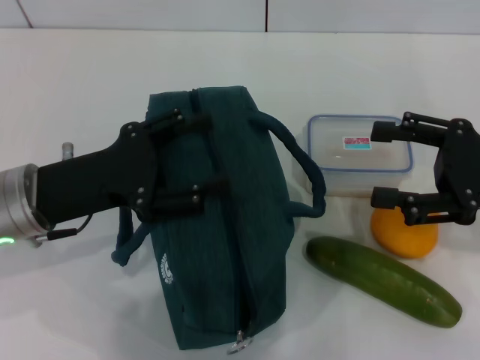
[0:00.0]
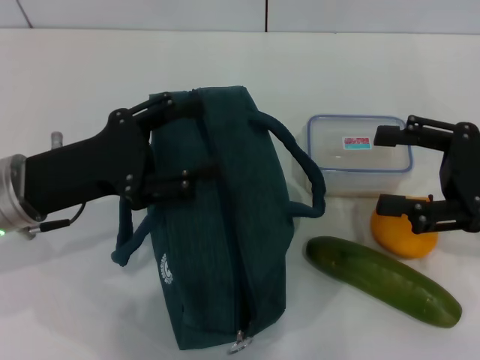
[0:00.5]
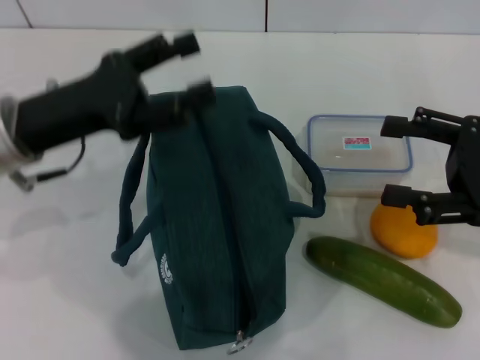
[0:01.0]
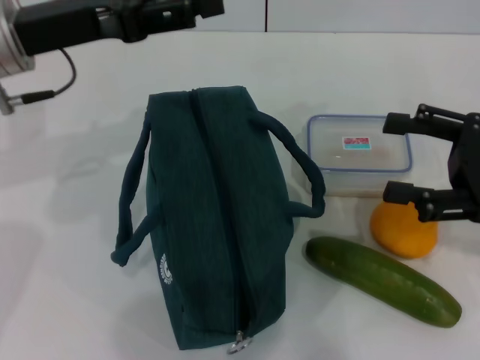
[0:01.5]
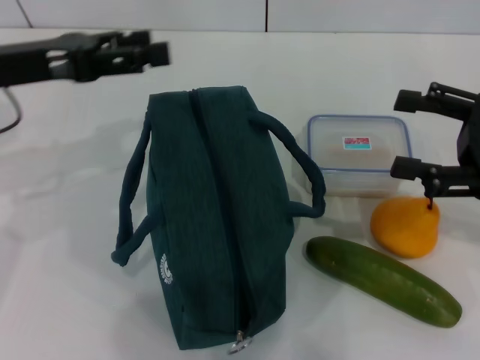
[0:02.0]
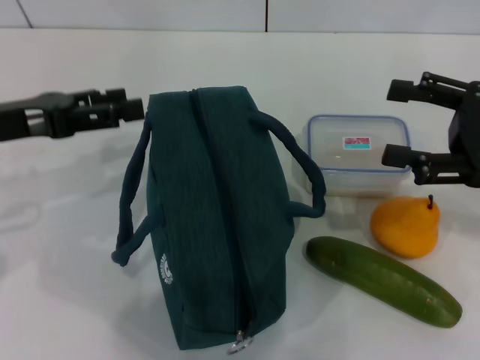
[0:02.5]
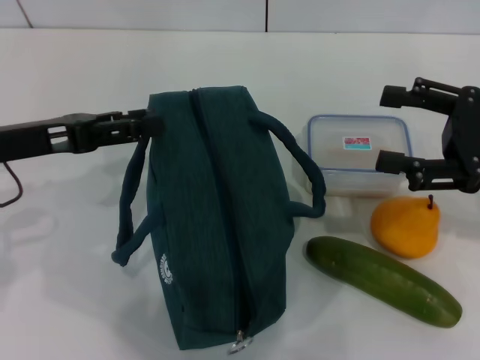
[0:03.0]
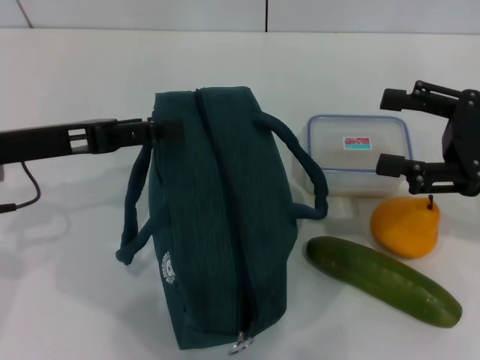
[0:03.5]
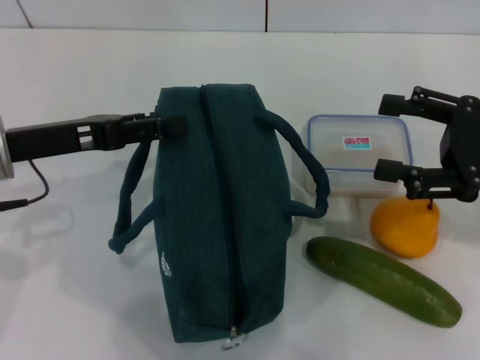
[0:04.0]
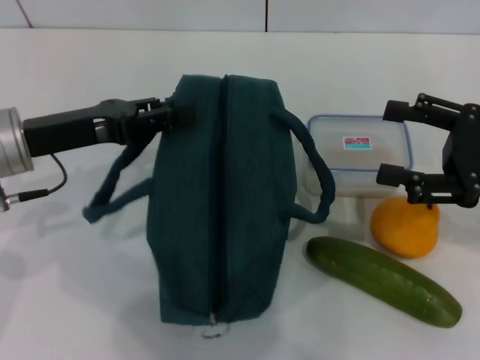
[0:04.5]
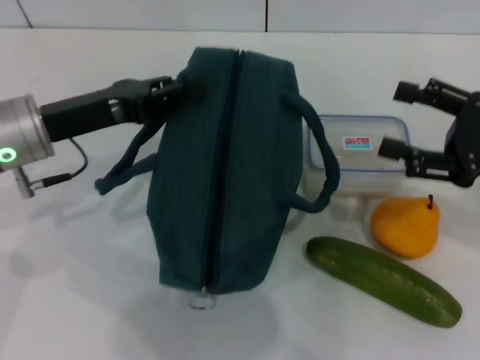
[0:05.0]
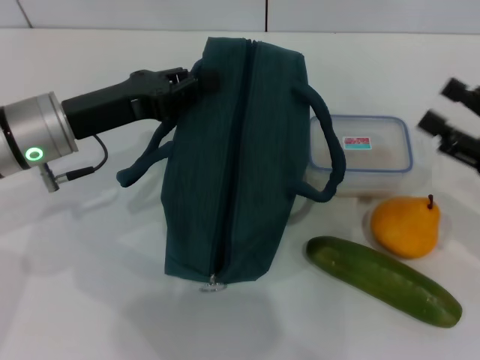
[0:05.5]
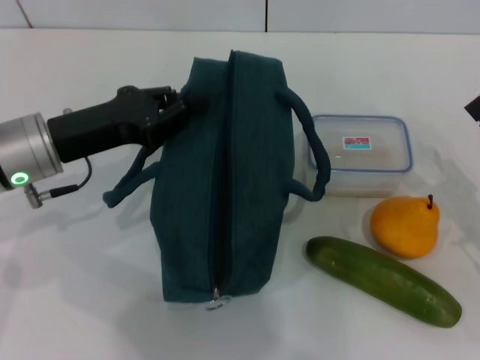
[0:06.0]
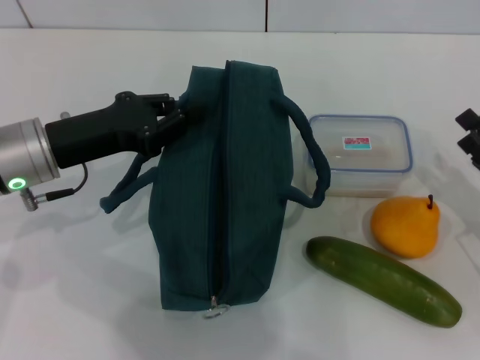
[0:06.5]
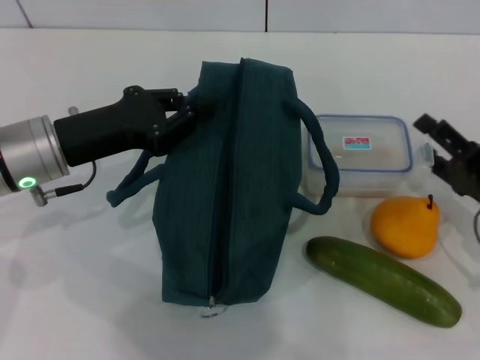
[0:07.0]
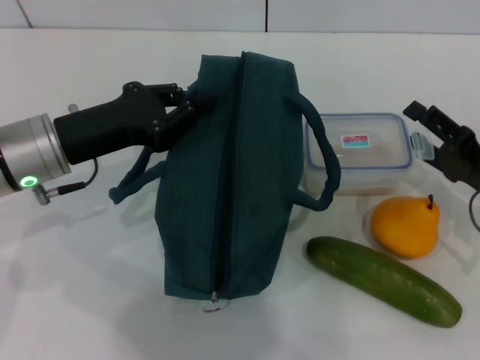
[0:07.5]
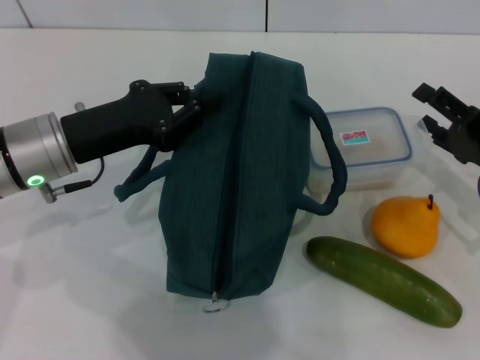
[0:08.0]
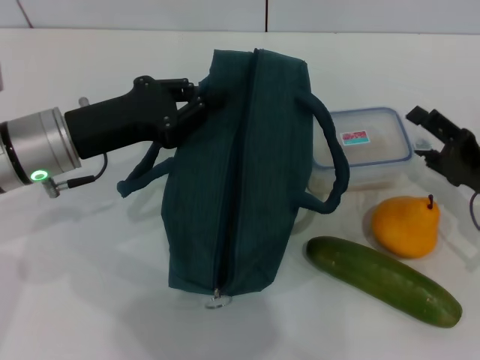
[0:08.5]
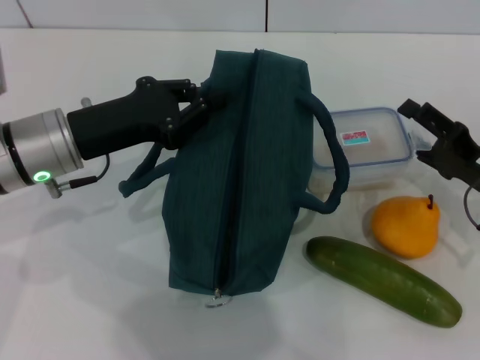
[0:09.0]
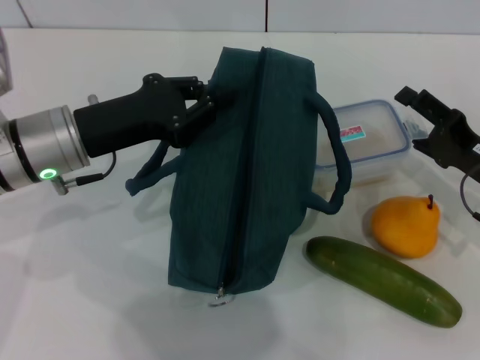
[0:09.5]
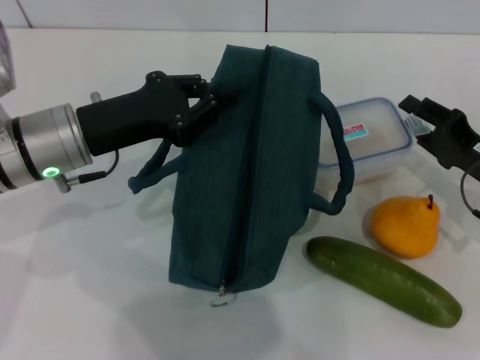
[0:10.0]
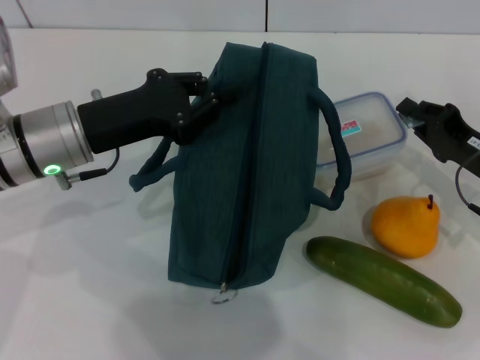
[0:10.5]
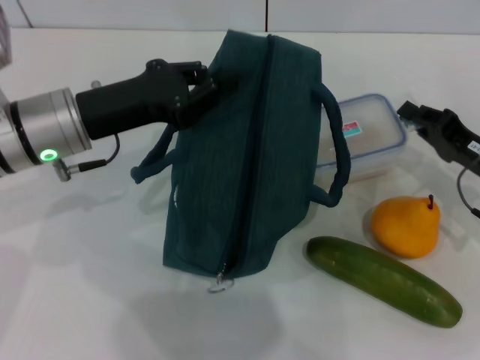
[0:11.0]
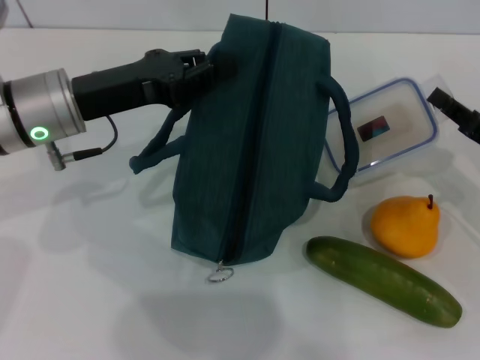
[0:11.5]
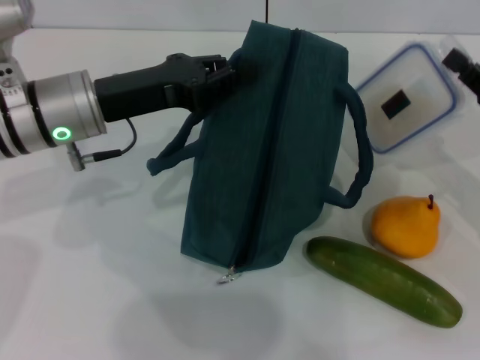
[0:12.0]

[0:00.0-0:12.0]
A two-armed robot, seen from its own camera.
Step, 0:00.0 to 0:06.0: Hold the lunch bag with your left hand.
Step, 0:06.5 to 0:10.5: Pick up the lunch box with your right hand.
0:00.0 to 0:02.0: The left gripper heads upward and forward, covering approximately 10 cm.
0:02.0 to 0:04.0: The left gripper moves downward, roughly 5 cm.
0:04.0 to 0:06.0: The left gripper closes its fingers. The right gripper is displaced downward and backward by some 10 cm.
0:06.0 to 0:08.0: The right gripper heads forward, covering some 5 cm.
0:08.0 to 0:10.0: There are only small adjustments of the grippers.
0:10.0 to 0:12.0: The right gripper changes place by approximately 5 cm, and closes up.

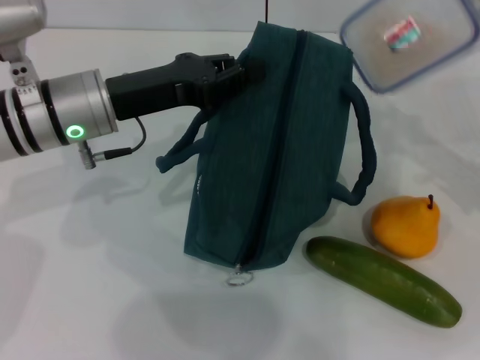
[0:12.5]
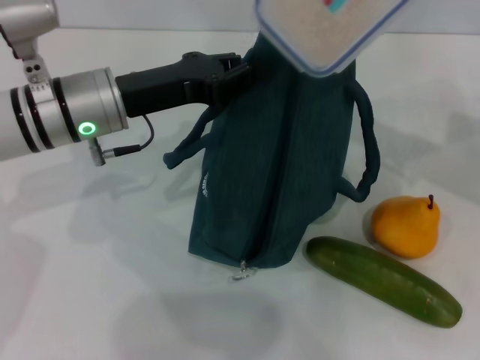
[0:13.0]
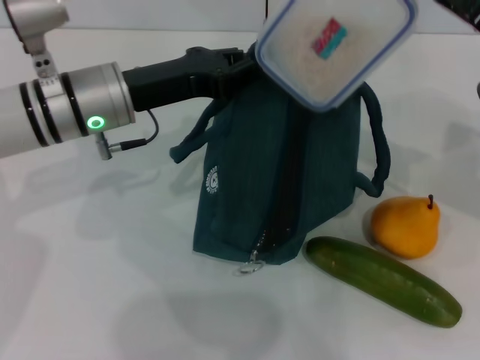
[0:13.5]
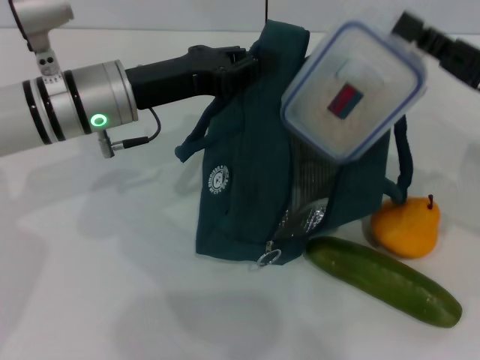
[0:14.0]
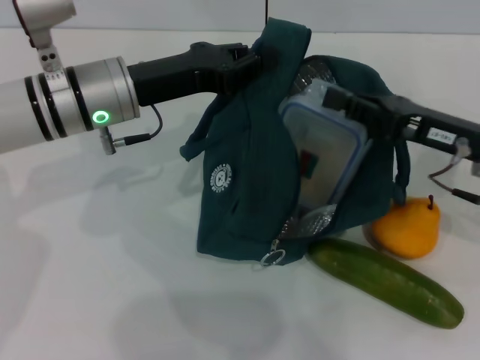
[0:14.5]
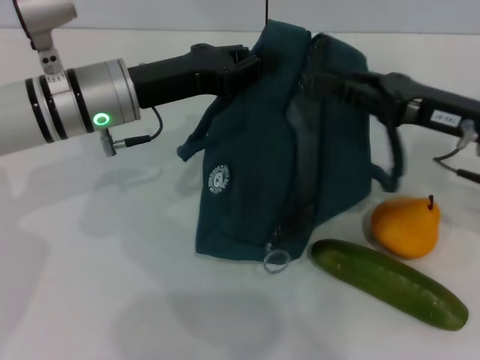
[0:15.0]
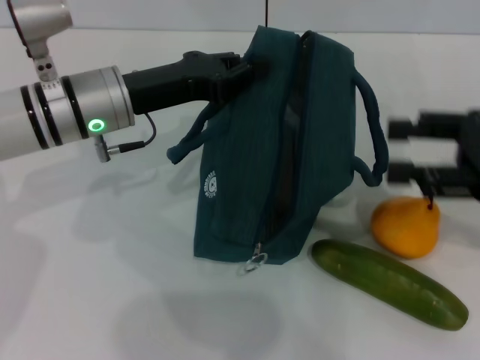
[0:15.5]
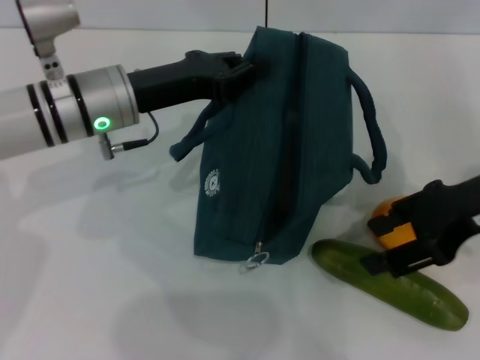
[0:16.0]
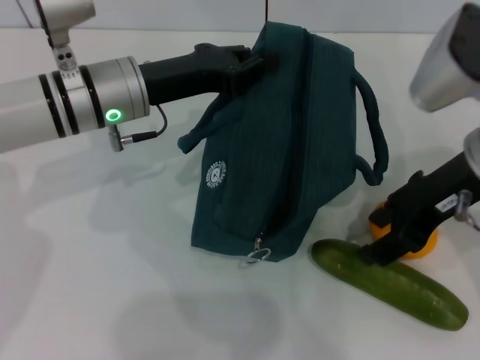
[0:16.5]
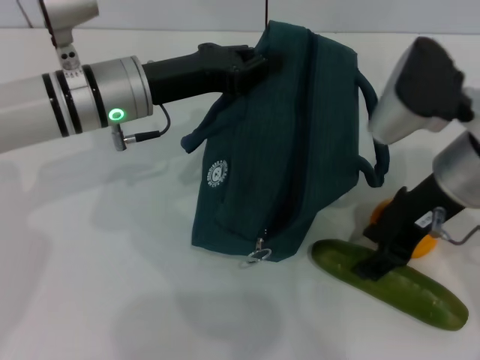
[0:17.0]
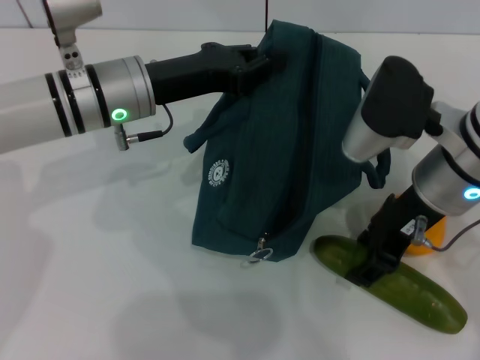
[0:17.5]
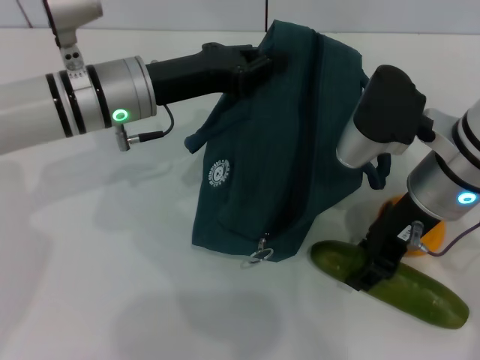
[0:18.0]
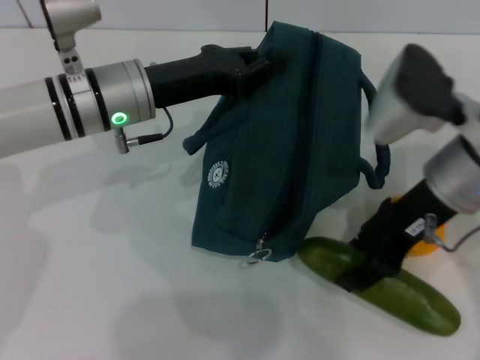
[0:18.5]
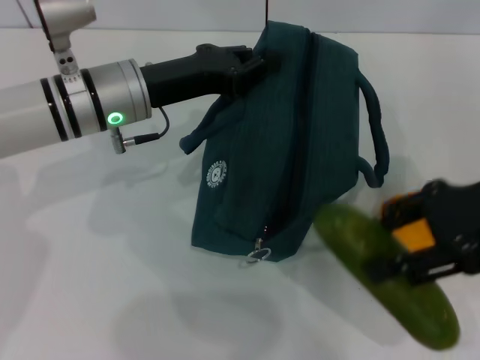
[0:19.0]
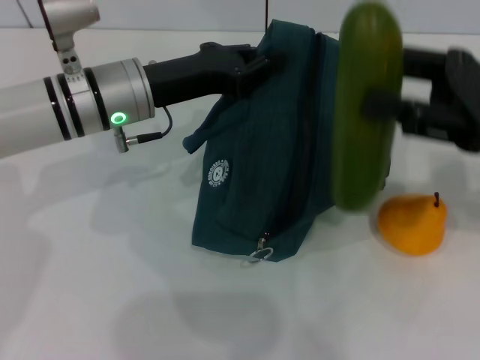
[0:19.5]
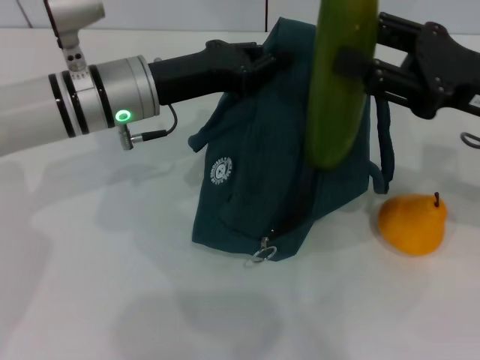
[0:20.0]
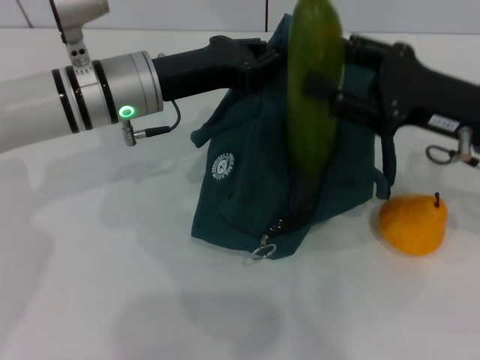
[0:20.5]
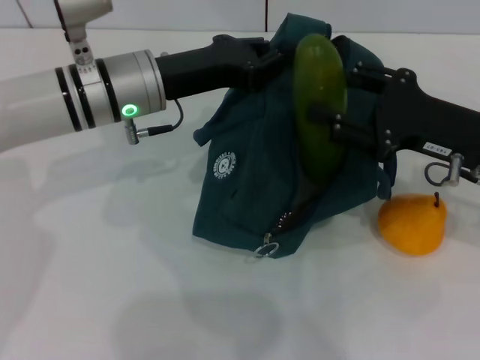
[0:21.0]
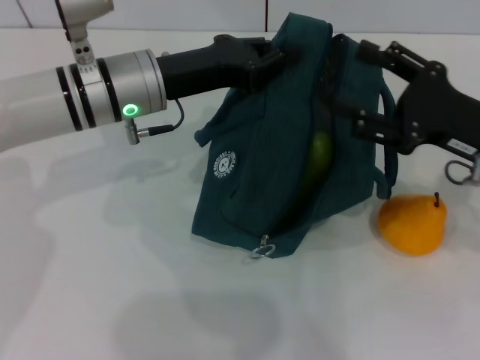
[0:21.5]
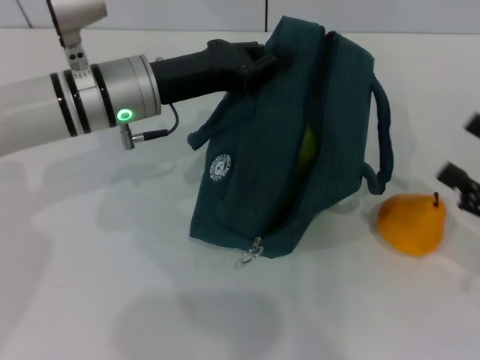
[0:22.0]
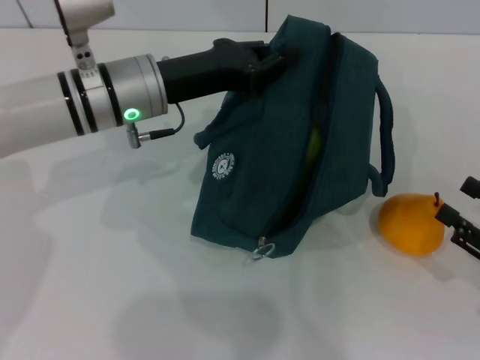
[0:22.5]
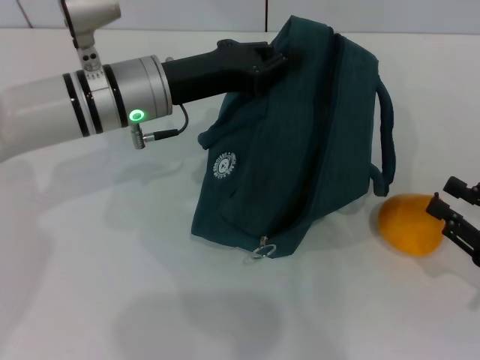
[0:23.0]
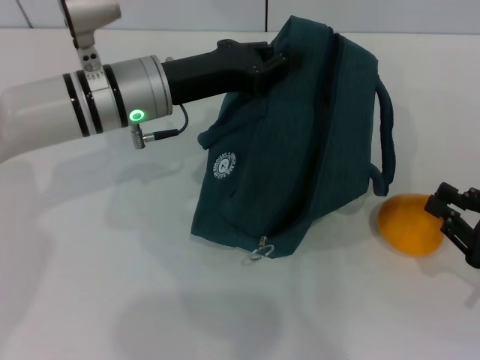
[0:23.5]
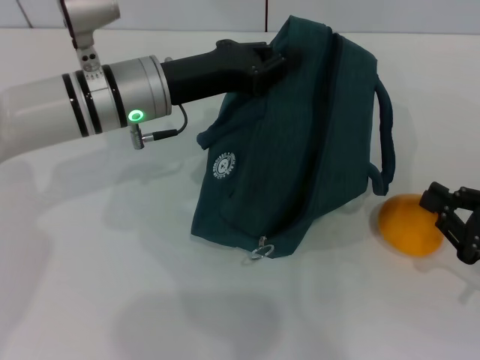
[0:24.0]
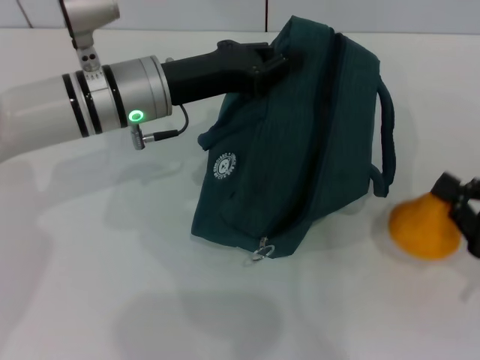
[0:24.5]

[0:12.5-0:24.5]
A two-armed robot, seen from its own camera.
Step, 0:12.5 to 0:15.0: Place the lunch box into the lunch bag with your right hand.
Step, 0:15.5 to 0:18.0: Pick up the cucumber with your right hand.
Step, 0:18.5 to 0:21.5: Put the cucumber into the lunch bag with your right hand.
Step, 0:22.0 to 0:24.0: Grab the pear with your right hand.
0:12.5 to 0:14.5: The right gripper heads to the left, covering approximately 5 cm.
0:14.5 to 0:16.5: The right gripper moves upward and to the left, some 10 cm, and opens.
0:16.5 to 0:18.5: The grippers move only a little.
0:18.5 to 0:20.5: The right gripper moves to the right, some 5 cm.
0:20.5 to 0:22.5: The right gripper is displaced backward, to the right and downward by about 20 cm.
0:22.5 to 0:24.5: The right gripper closes its fingers.

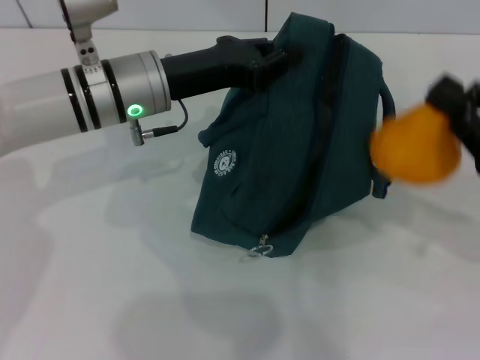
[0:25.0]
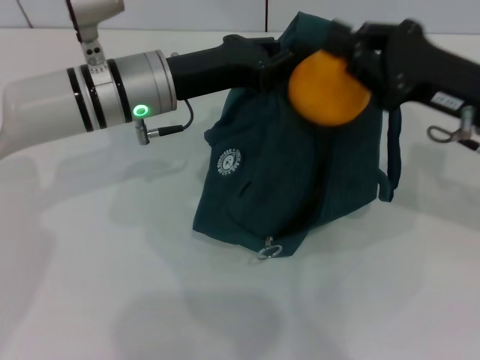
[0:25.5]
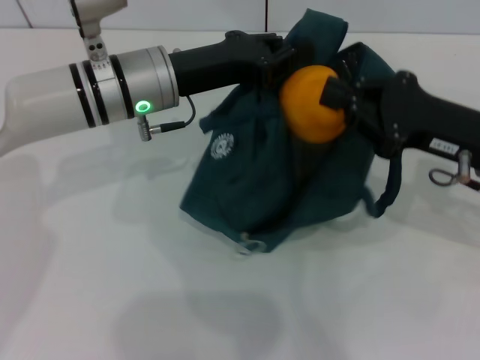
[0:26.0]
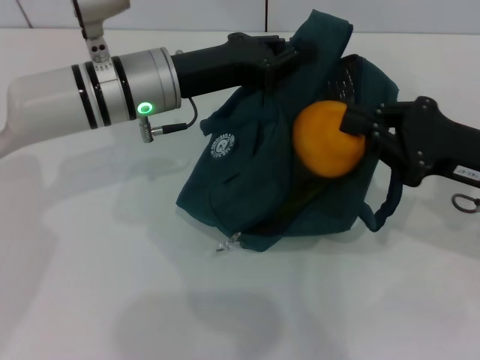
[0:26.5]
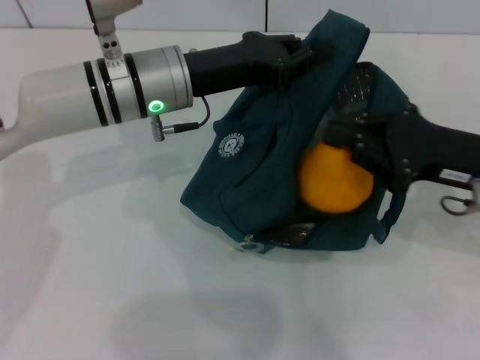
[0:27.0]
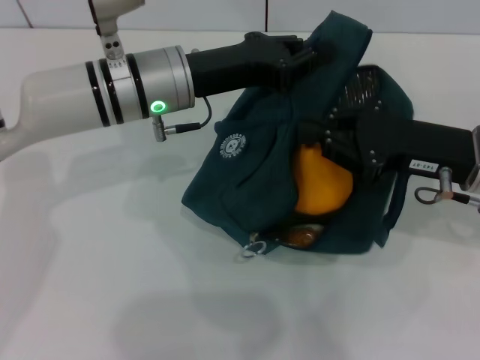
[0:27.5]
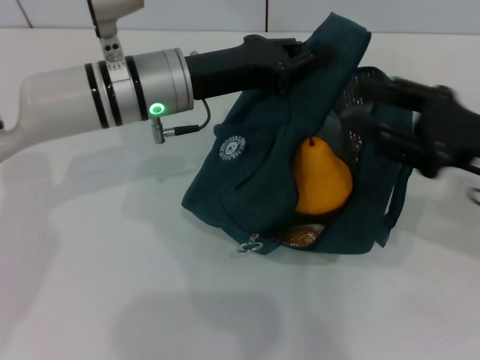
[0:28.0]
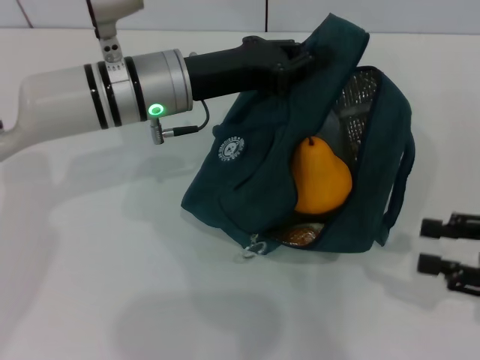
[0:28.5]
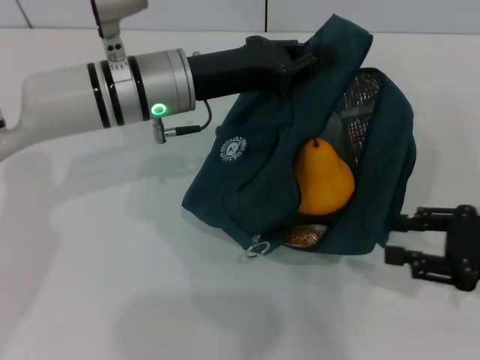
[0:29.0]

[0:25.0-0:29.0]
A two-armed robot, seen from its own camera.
0:25.0 to 0:27.0: The right gripper is displaced to the left by some 5 cm.
0:27.0 to 0:29.0: The right gripper shifts approximately 5 cm to the right, and opens.
